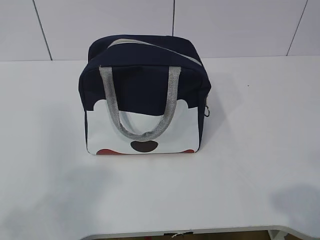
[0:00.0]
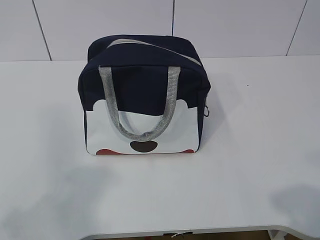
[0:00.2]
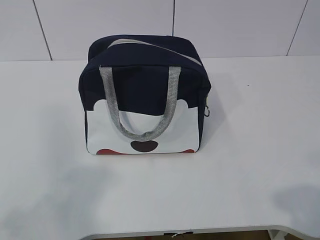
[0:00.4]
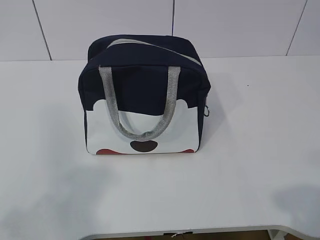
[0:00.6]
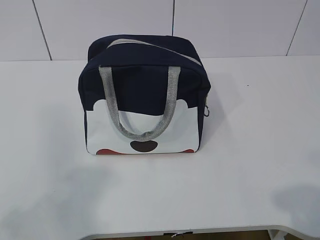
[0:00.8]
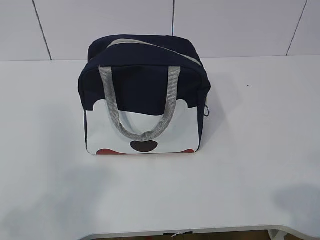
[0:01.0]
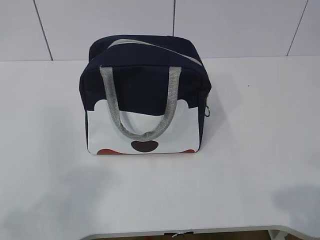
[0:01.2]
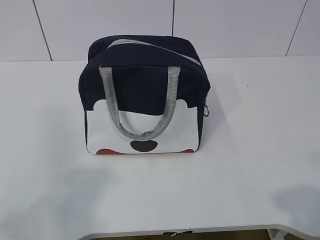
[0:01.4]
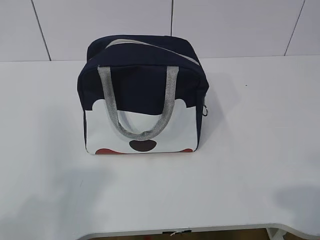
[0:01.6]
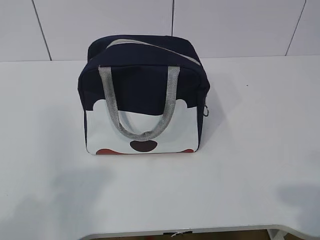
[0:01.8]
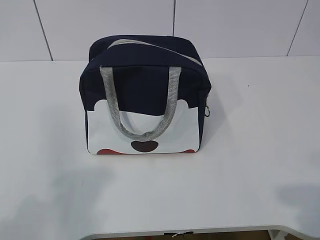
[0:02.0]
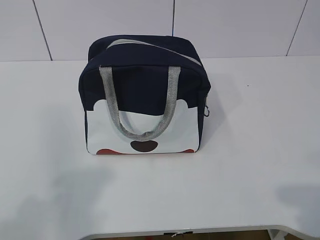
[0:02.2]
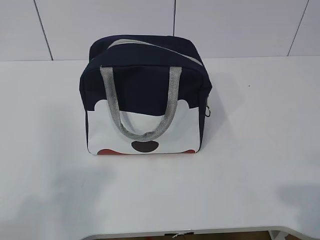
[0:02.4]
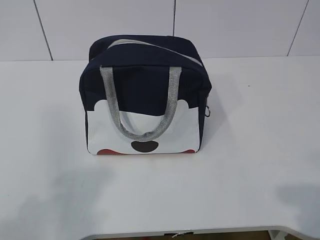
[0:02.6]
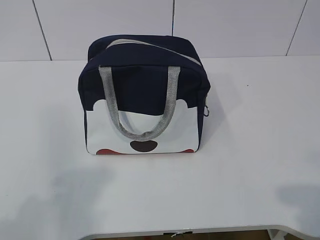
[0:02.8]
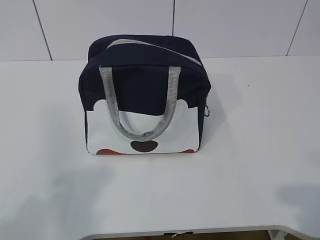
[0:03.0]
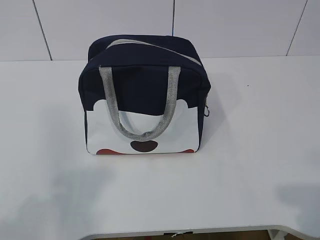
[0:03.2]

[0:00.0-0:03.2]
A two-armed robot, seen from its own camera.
0:00.0 to 0:03.2: The grippers move only a little.
